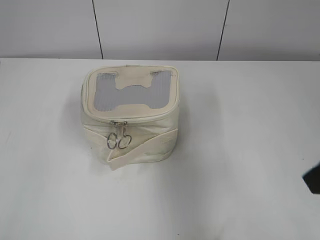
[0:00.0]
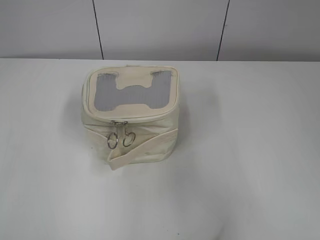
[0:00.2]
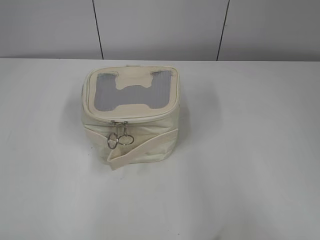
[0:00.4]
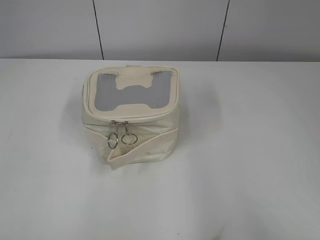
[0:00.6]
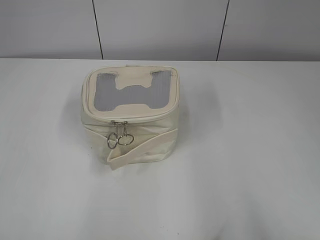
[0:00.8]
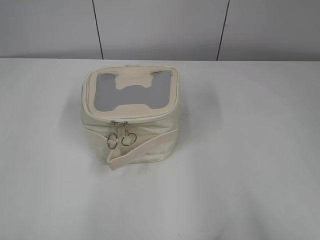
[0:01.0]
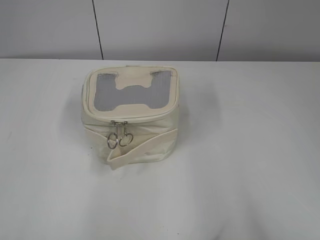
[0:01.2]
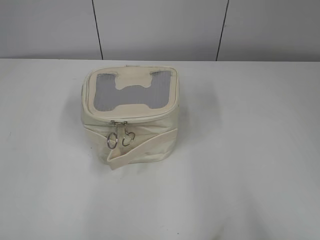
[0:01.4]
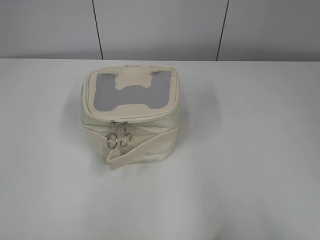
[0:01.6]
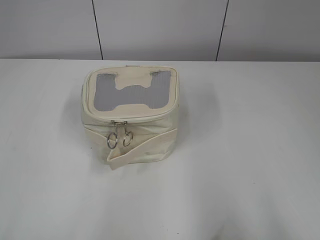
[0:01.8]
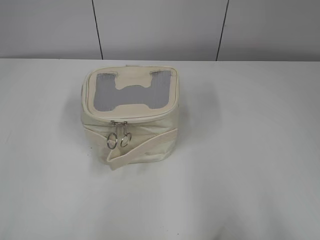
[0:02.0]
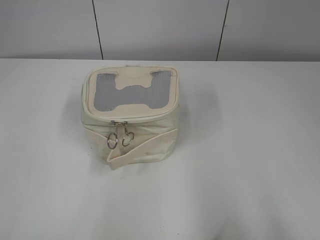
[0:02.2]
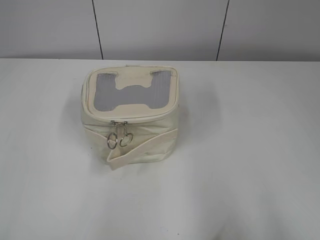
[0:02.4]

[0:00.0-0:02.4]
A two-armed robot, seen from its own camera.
0:00.0 to 0:01.2: The left gripper travels backward by some 20 cm. Meanwhile the right gripper moves backward and to the right, about 20 cm.
